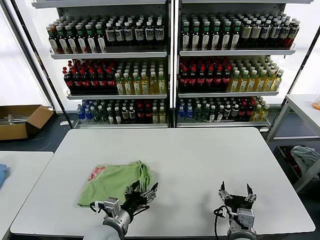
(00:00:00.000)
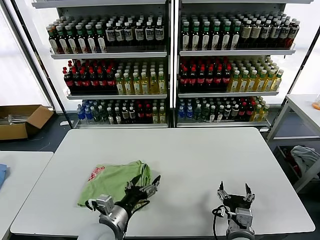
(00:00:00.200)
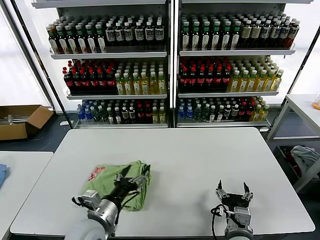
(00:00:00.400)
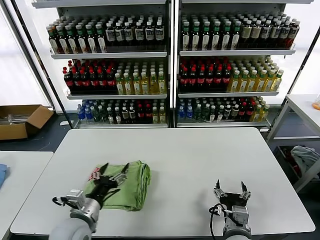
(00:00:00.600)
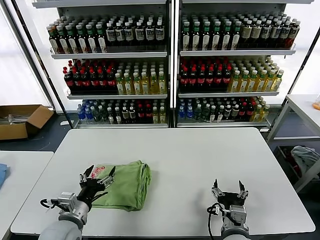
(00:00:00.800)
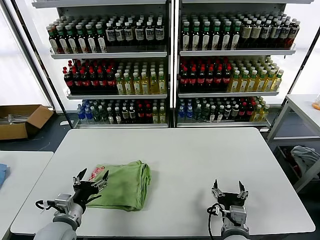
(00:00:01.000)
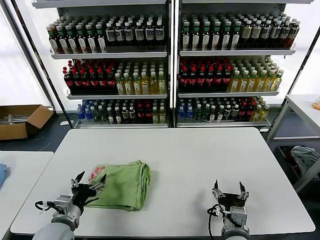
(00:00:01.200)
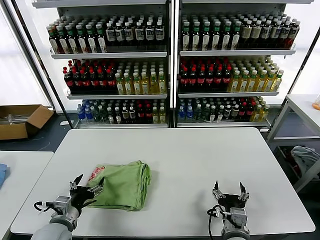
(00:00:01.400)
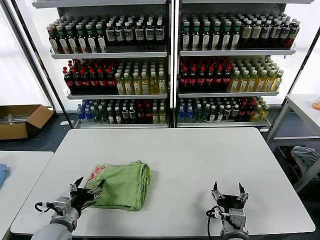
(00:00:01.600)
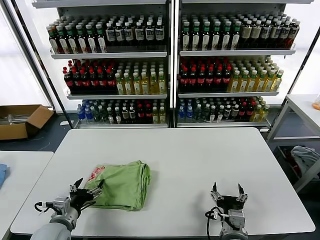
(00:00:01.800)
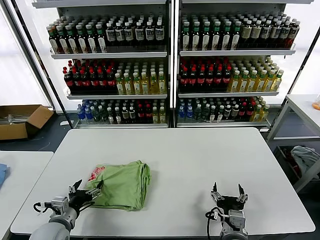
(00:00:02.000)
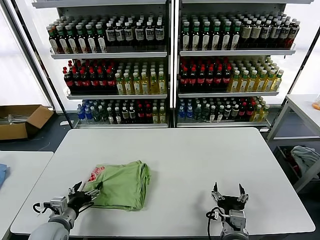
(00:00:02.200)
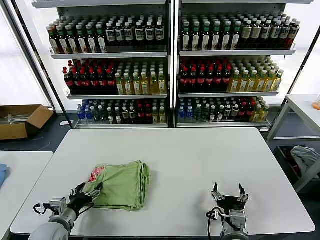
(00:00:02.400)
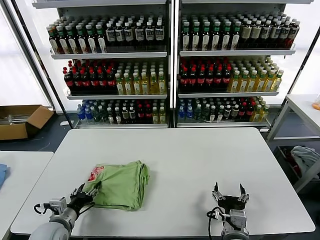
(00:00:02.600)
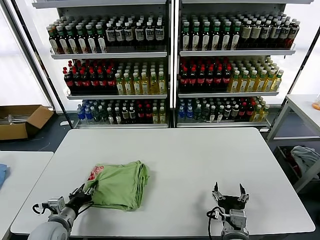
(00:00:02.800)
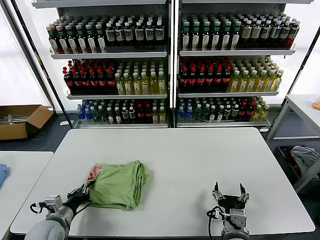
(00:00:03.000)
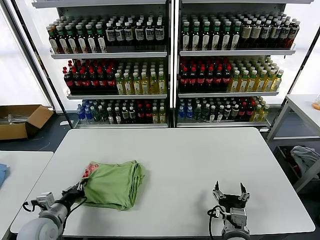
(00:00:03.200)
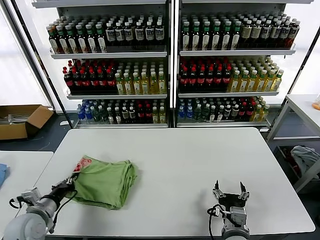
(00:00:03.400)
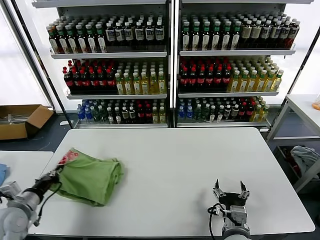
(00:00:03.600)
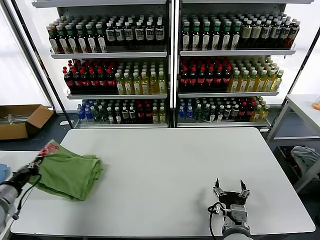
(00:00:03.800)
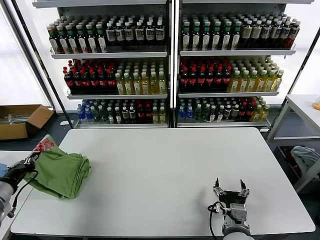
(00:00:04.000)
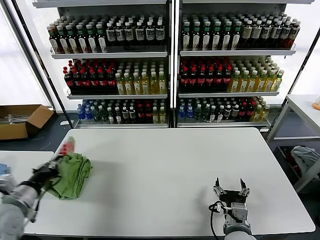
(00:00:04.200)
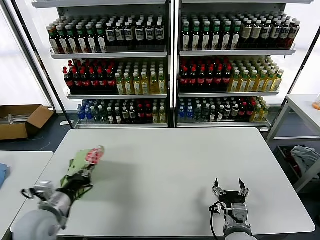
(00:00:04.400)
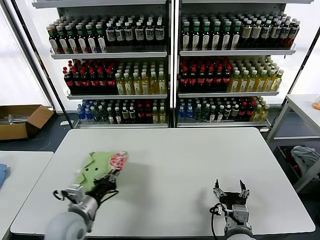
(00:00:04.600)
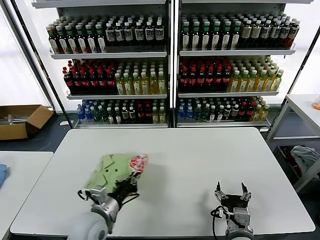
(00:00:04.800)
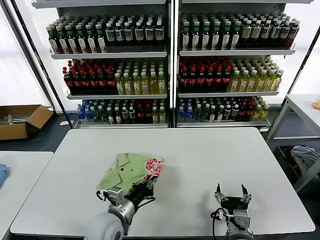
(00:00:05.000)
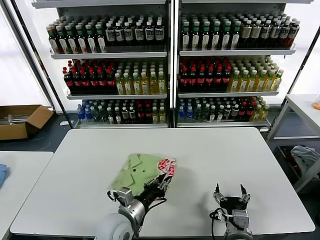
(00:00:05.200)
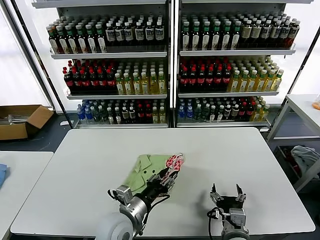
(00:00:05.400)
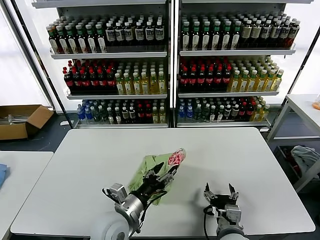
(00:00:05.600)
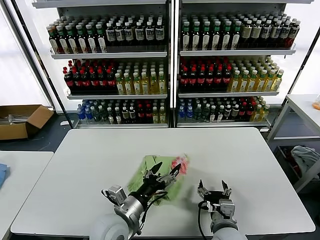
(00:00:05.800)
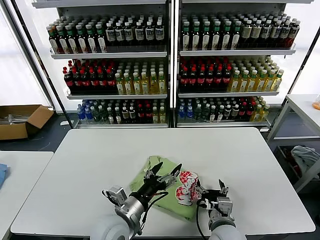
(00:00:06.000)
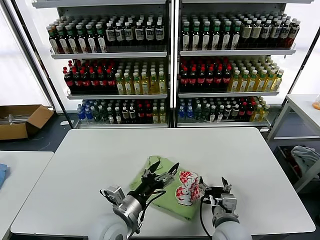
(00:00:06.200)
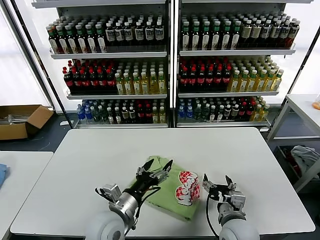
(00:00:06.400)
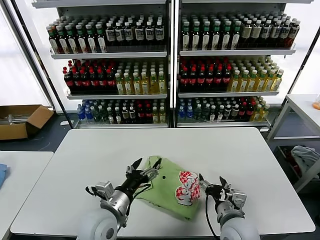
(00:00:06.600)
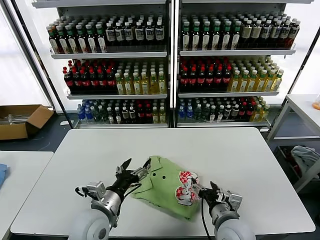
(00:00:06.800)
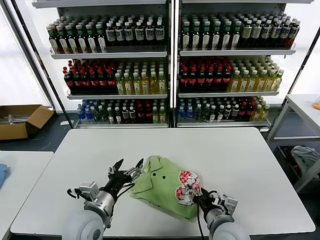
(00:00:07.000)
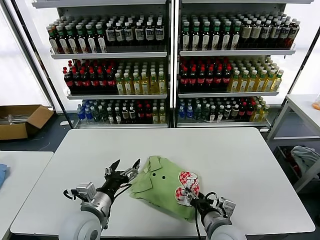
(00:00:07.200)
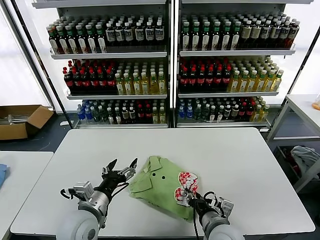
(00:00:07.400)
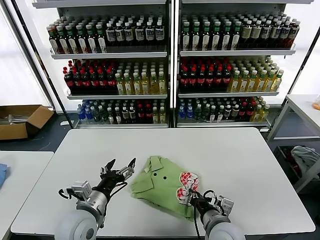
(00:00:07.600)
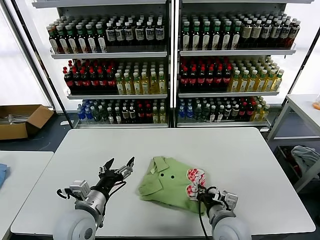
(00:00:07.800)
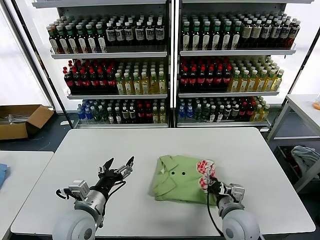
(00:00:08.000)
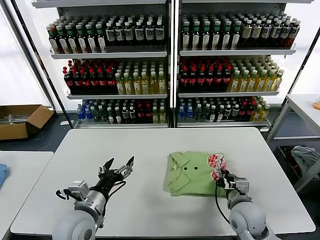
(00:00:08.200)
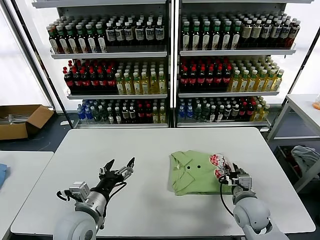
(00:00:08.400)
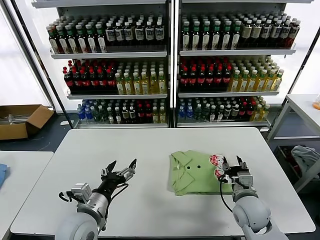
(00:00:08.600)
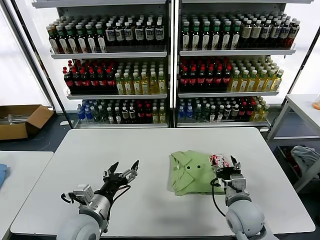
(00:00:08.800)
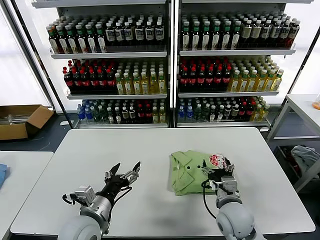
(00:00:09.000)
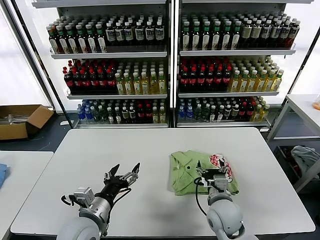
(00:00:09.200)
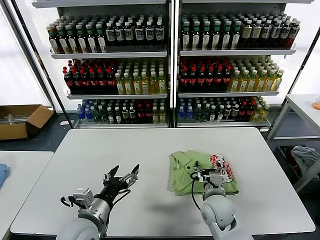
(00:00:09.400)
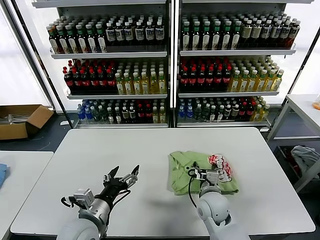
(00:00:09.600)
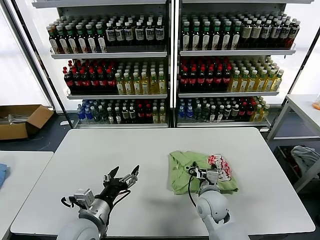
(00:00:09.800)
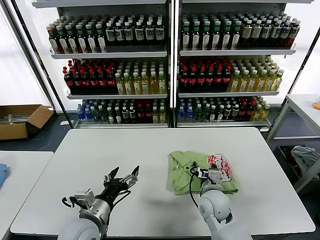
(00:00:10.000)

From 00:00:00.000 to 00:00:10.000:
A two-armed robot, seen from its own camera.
Task of the whole recording: fold and organize the clothes.
Step, from 00:00:00.200 to 00:00:06.000: Flip the folded clothes over with left gripper.
From 00:00:00.000 to 00:00:01.400: The left gripper heads to the left, covering about 15 cm.
From 00:00:01.400 to 00:00:02.800: The left gripper closes up.
From 00:00:02.800 to 00:00:04.200: The left gripper moves upward and to the left, approximately 15 cm, and closes.
From 00:00:04.200 to 00:00:05.800: The left gripper goes approximately 30 cm to the right, and opens its fingers.
From 00:00:05.800 to 00:00:07.200: The left gripper goes some 5 cm to the left, while the right gripper closes its fingers.
From 00:00:07.200 to 00:00:08.600: The right gripper moves to the right and forward, some 10 cm, and closes, then opens again.
From 00:00:08.600 to 00:00:10.000: The right gripper heads to the left, covering some 10 cm, and opens.

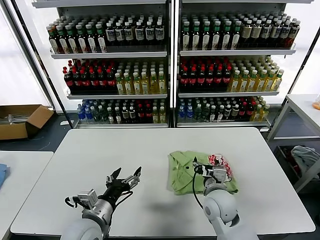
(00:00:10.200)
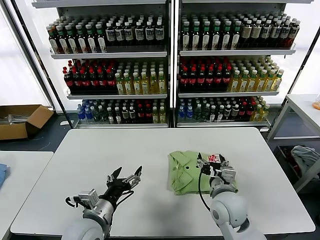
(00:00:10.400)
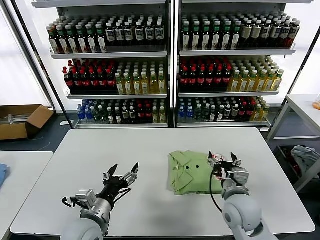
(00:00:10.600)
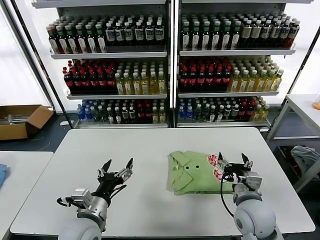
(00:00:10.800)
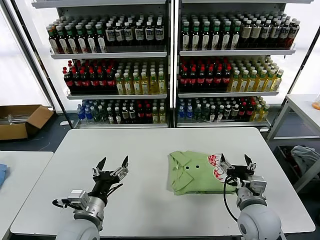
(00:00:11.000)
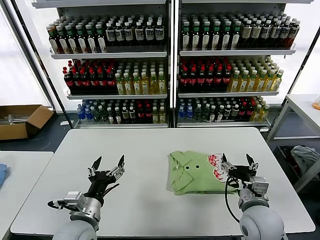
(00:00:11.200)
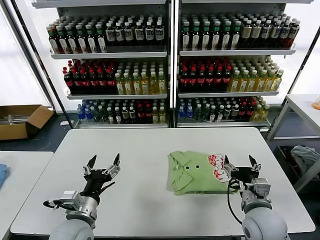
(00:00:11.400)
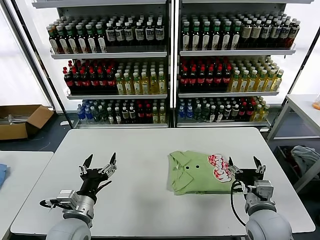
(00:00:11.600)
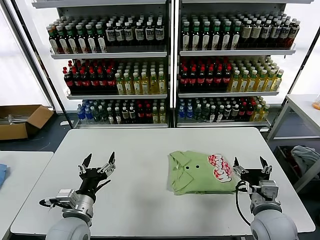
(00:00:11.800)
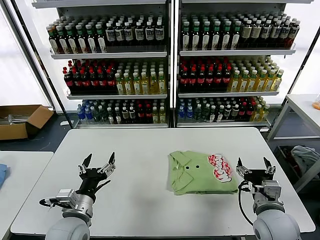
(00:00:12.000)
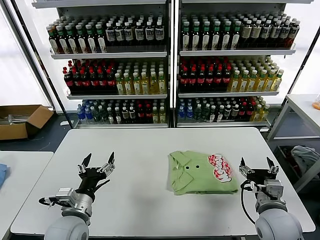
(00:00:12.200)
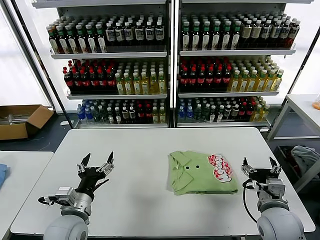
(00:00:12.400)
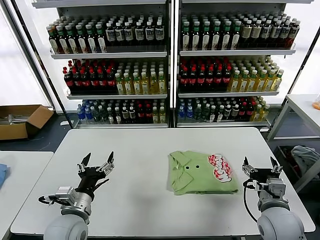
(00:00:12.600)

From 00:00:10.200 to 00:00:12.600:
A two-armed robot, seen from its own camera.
Task of the whole recording: fold and organize the clothes.
From 00:00:10.200 to 00:00:11.400: The right gripper heads to the right, backward and upward, covering about 15 cm.
From 00:00:11.400 to 00:00:12.600: The grippers move only a little.
